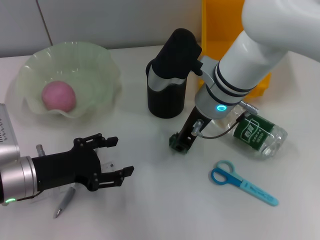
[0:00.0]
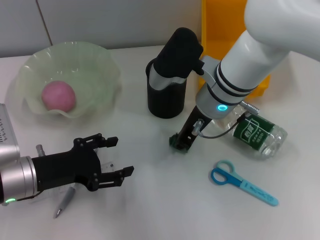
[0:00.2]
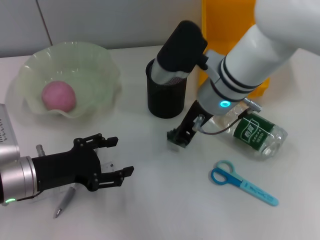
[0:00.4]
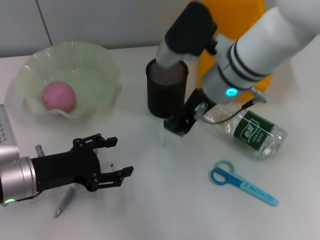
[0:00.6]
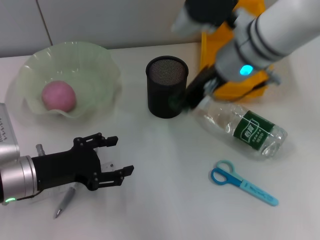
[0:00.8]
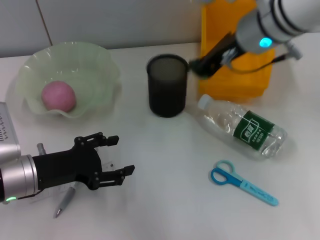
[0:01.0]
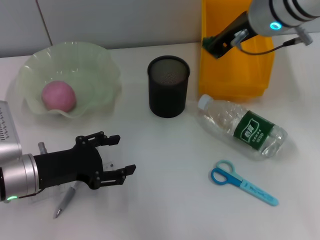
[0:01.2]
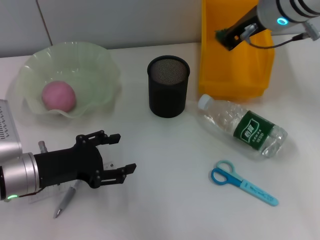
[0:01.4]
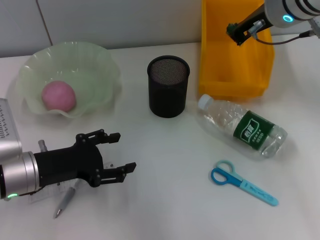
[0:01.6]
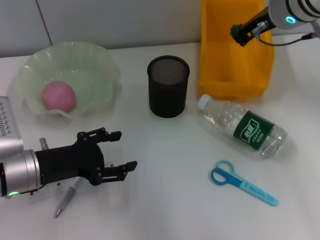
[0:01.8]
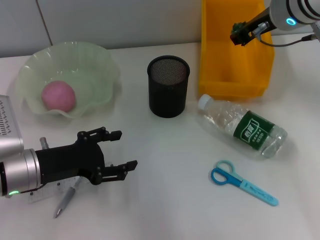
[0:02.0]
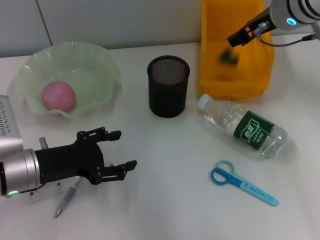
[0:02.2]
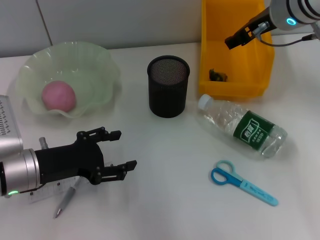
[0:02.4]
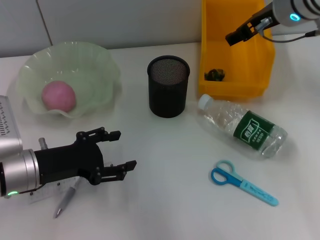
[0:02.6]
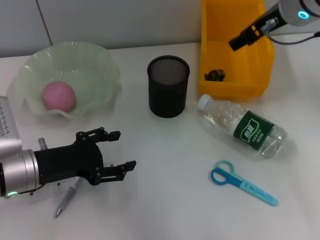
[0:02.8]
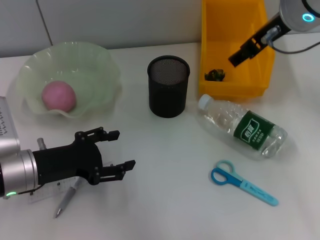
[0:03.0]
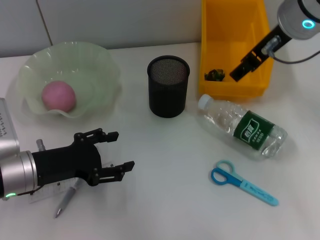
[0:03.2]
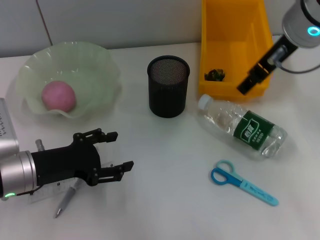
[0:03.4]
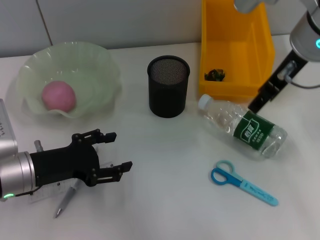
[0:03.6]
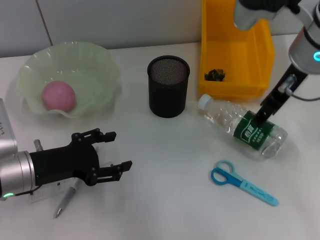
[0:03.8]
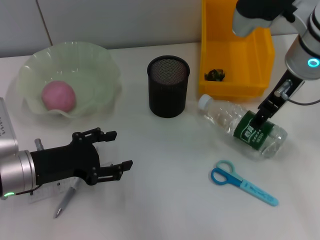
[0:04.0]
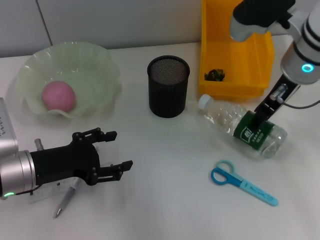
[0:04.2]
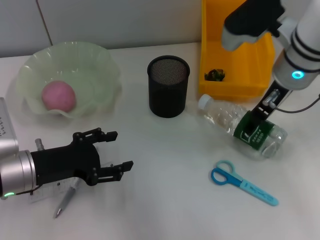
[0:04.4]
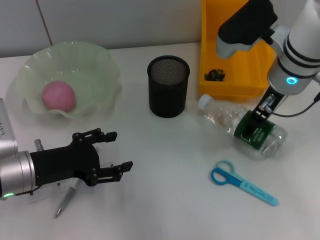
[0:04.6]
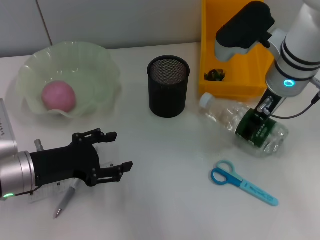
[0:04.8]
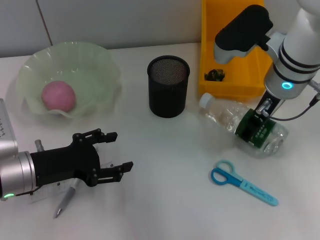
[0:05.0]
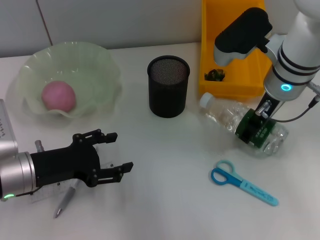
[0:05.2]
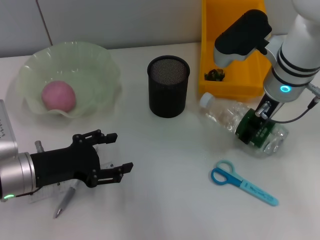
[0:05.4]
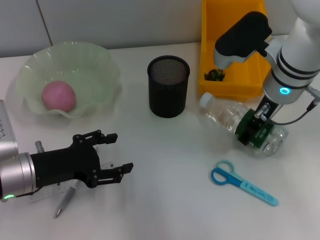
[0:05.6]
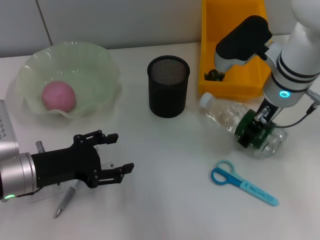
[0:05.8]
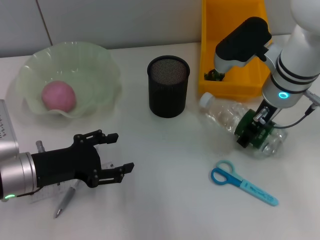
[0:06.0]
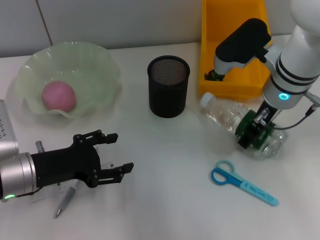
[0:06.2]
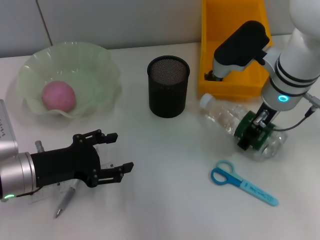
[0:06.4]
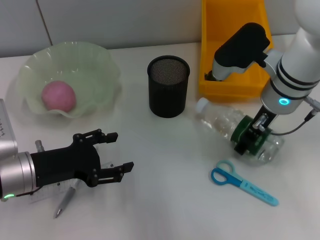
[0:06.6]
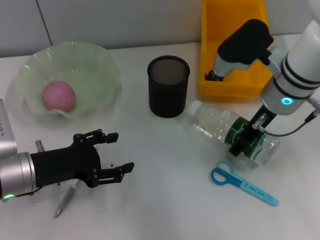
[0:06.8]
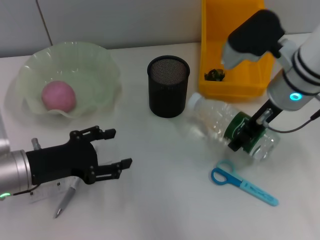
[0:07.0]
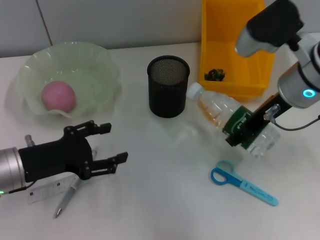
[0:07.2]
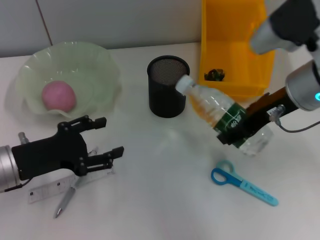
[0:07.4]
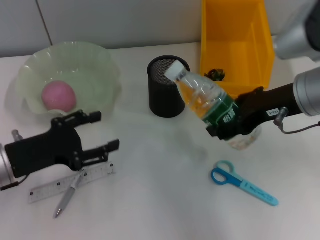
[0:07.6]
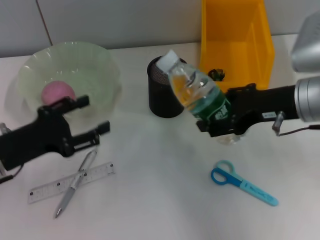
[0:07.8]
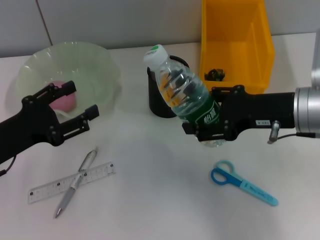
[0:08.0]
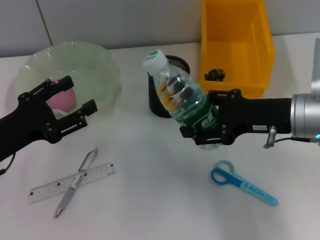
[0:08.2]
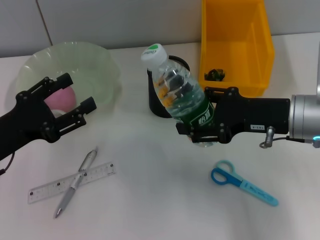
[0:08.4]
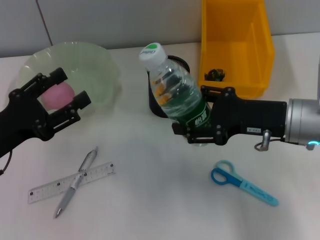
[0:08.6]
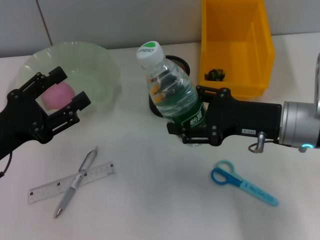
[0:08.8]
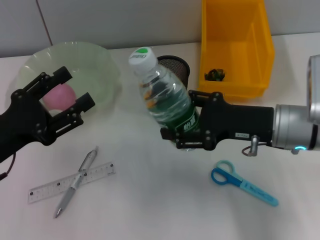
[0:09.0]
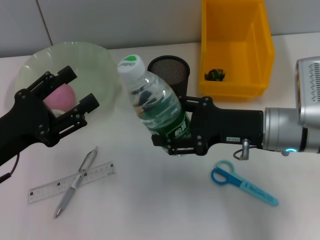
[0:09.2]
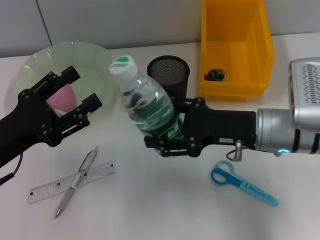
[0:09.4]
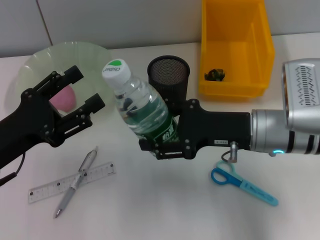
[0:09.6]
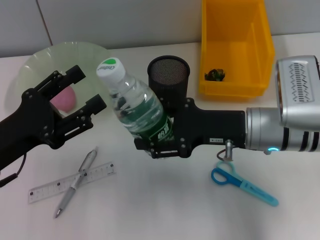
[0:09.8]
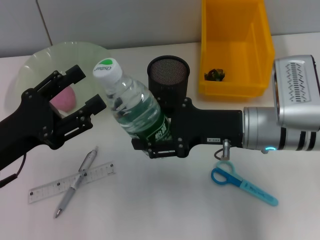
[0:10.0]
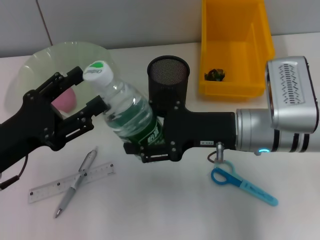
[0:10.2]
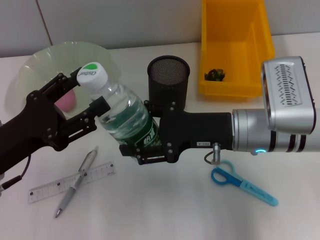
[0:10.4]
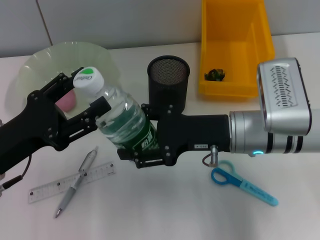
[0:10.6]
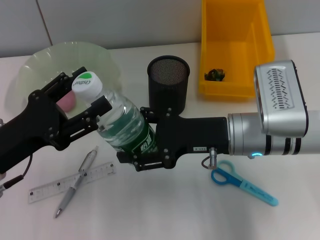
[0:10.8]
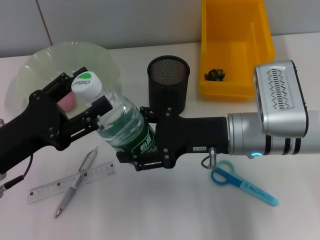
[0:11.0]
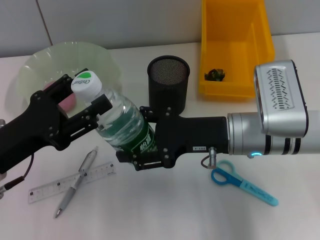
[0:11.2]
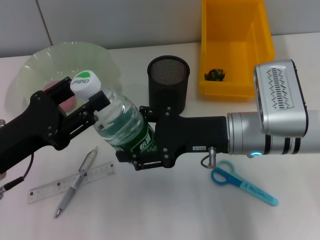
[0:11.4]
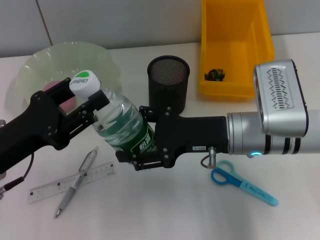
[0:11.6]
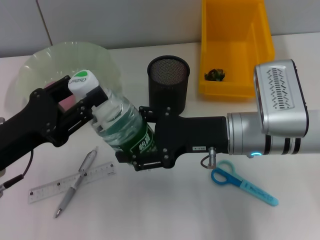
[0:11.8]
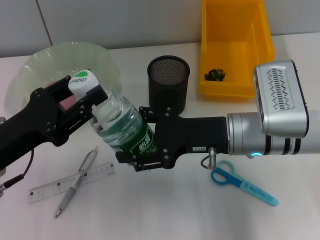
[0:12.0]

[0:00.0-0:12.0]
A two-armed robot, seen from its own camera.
Step, 0:00.2 to 0:02.2: Place the plastic into the trash can with the right hand.
Step, 0:02.4 to 0:05.6: Grab the water bottle with the right hand.
0:00.0 to 0:01.6: The right gripper goes about 15 cm upward and to the right.
0:01.6 to 0:03.0: The right gripper opens.
0:03.0 to 0:04.4: The right gripper travels downward by some 5 cm.
0:04.4 to 0:06.0: The grippers move only a little.
0:06.0 to 0:07.6: The right gripper heads backward, covering approximately 5 cm.
0:07.6 to 0:09.0: The right gripper shifts some 5 cm downward.
0:09.0 to 0:10.4: The right gripper heads to the left, covering approximately 5 cm.
0:10.4 to 0:12.0: The left gripper closes up.

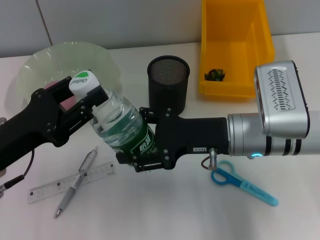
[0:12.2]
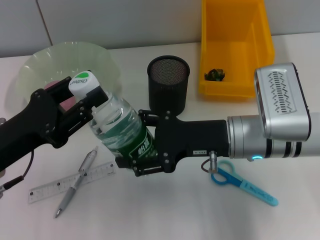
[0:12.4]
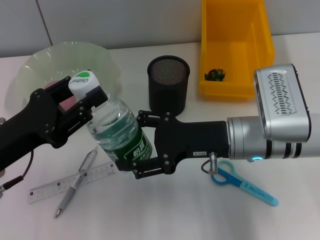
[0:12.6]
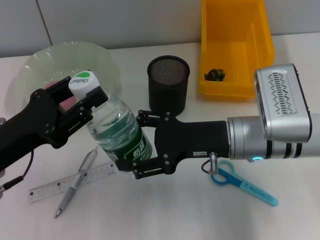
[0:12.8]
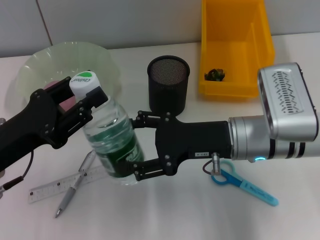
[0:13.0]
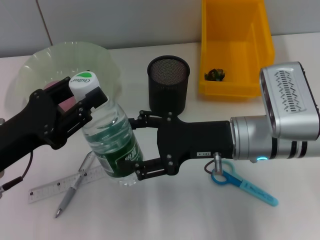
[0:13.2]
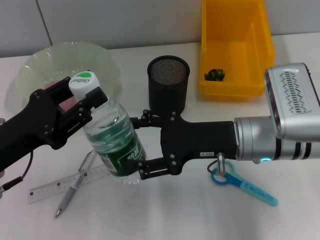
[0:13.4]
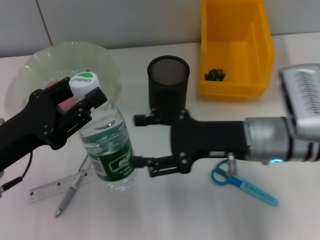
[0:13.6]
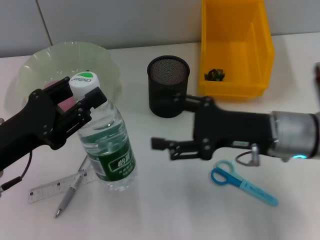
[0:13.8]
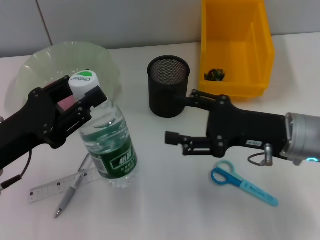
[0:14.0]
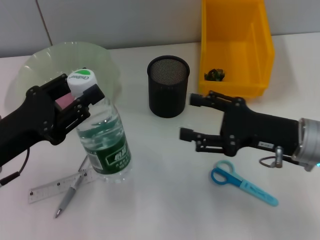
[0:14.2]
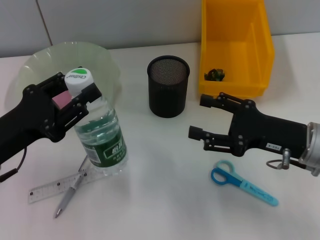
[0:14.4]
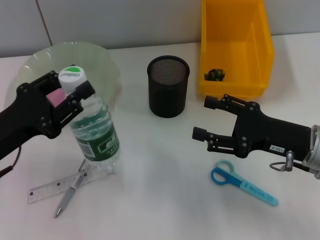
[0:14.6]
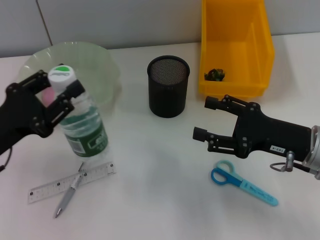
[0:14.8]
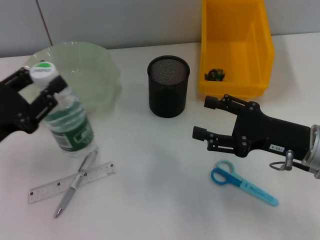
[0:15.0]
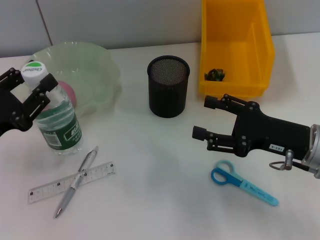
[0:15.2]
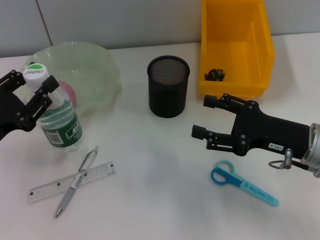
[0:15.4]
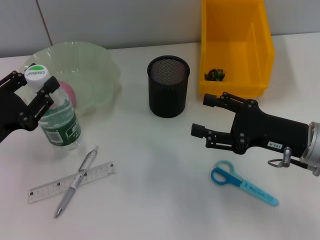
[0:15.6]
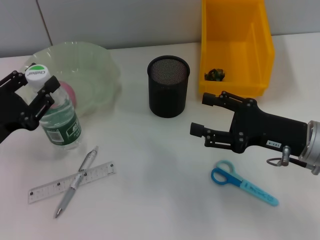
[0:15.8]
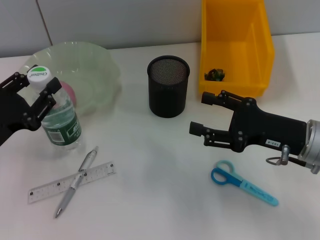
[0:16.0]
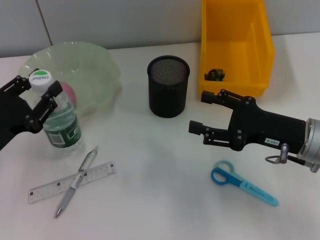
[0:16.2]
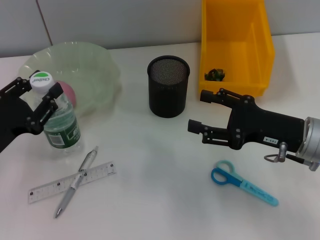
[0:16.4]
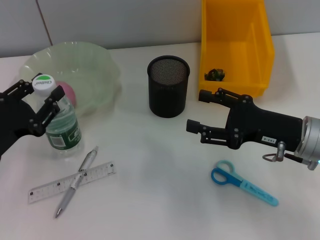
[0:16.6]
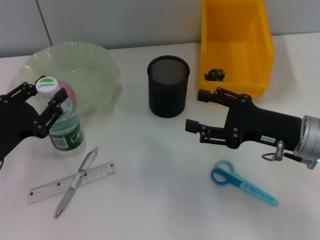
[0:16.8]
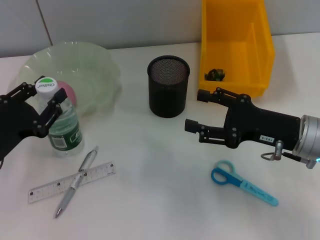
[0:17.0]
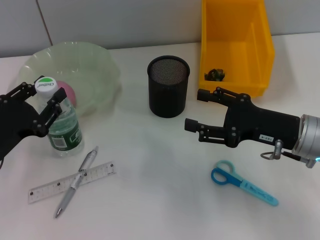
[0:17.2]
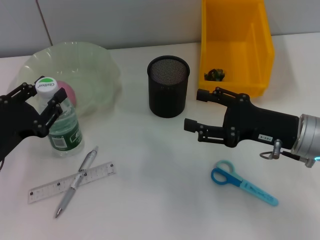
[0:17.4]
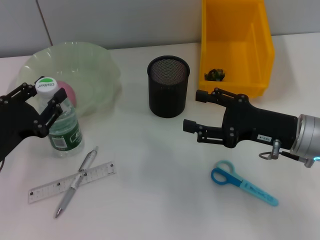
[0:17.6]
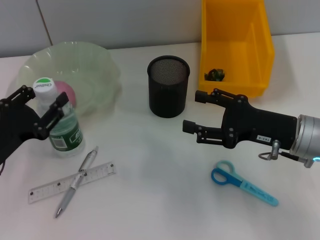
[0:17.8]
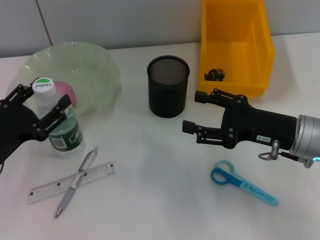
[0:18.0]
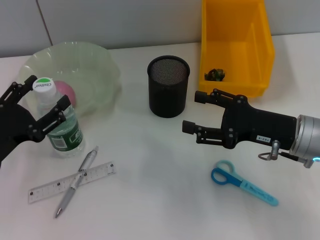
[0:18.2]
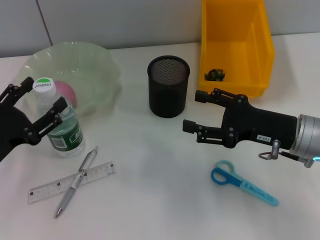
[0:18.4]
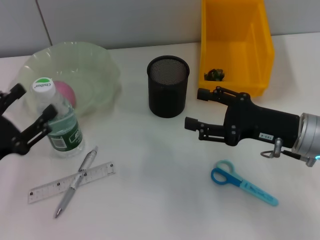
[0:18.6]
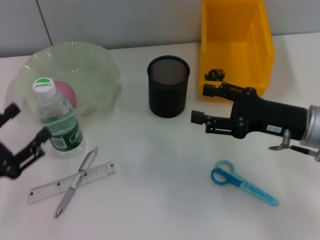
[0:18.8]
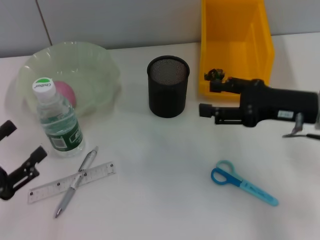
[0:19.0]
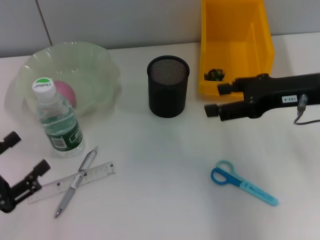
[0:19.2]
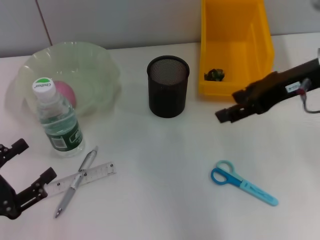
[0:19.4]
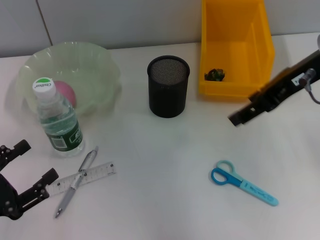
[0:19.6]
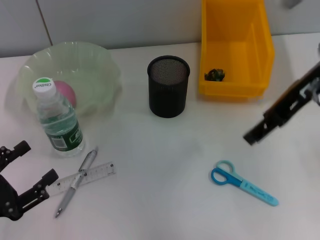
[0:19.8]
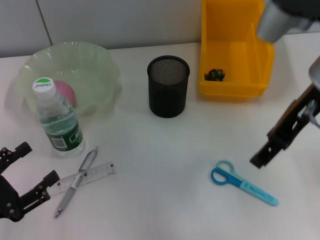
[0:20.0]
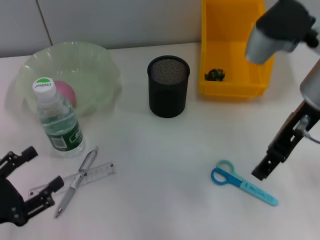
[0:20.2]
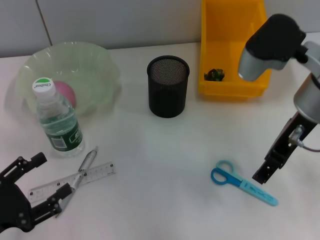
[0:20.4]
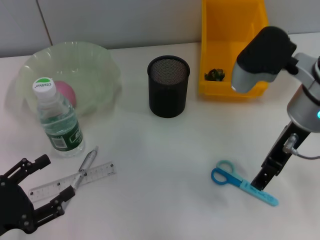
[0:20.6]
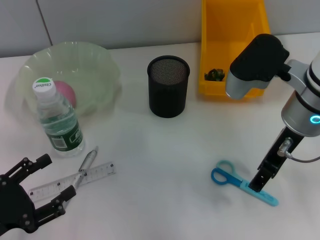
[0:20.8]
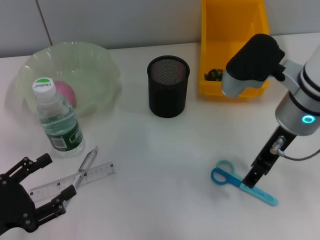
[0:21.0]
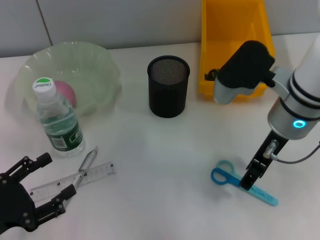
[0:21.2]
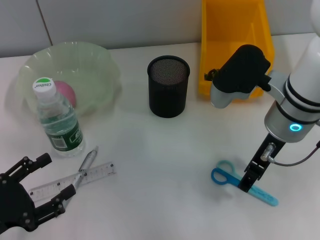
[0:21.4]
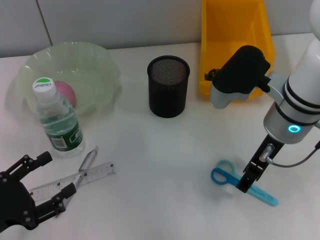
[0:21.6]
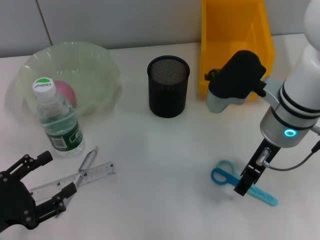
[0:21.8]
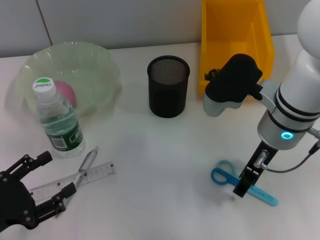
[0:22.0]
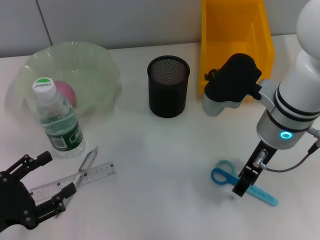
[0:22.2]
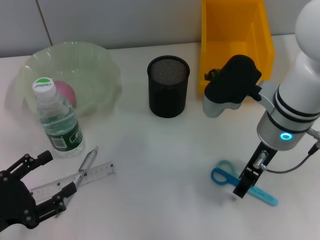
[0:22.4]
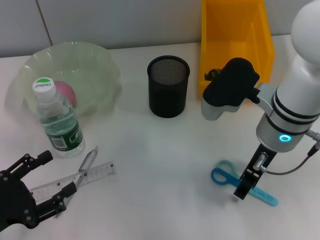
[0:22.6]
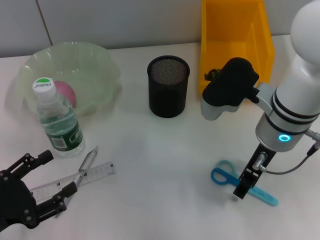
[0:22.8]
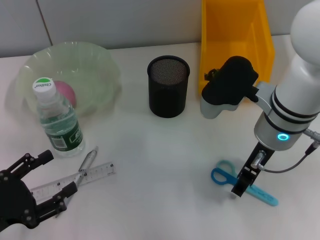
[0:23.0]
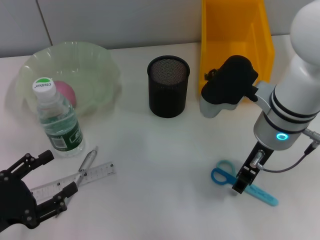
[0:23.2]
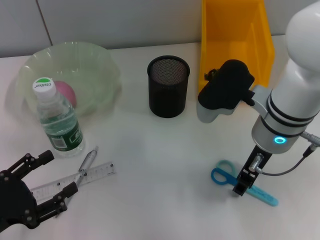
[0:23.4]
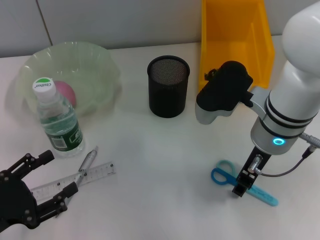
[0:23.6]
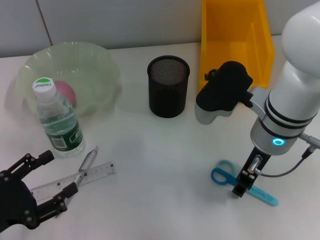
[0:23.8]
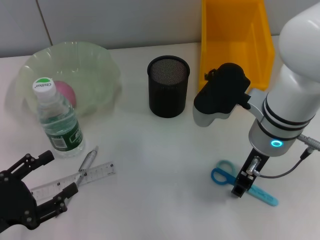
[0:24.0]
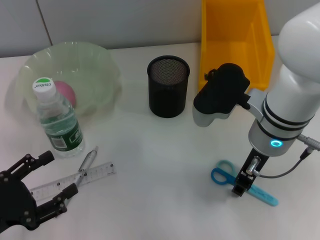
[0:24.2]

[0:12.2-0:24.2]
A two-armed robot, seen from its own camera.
Step, 0:13.2 to 0:18.2: Place the water bottle on the table with the left hand.
0:12.2 to 0:13.8: The right gripper moves some 5 cm.
0:13.8 to 0:15.2: The right gripper travels to the right by some 5 cm.
0:15.2 to 0:16.6: There are only small adjustments of the grippers.
0:16.6 to 0:18.2: The left gripper opens.
0:18.2 to 0:19.8: The left gripper goes roughly 10 cm backward; the right gripper heads upward, covering approximately 15 cm.
0:19.8 to 0:21.2: The right gripper moves downward, some 10 cm.
0:21.2 to 0:22.6: The grippers stay close to where they were, moving slightly.
0:22.6 to 0:24.2: Both grippers stay put.
